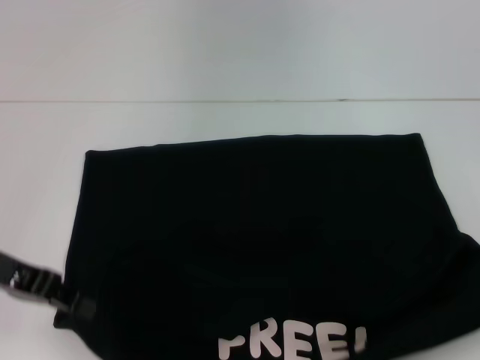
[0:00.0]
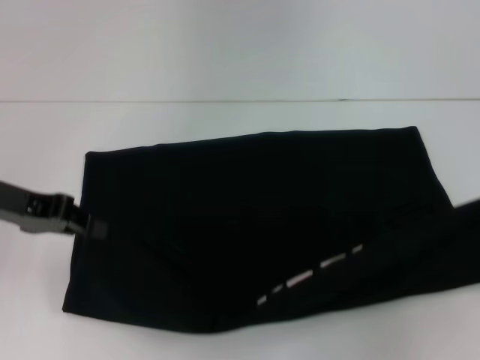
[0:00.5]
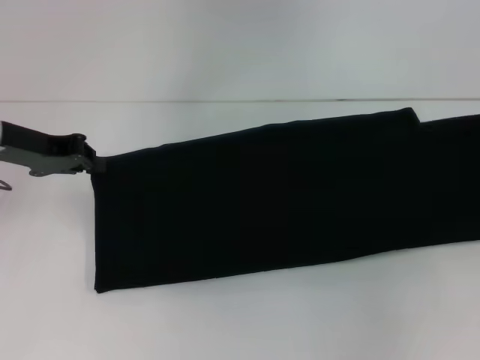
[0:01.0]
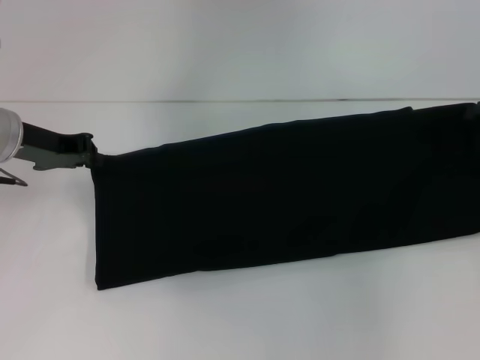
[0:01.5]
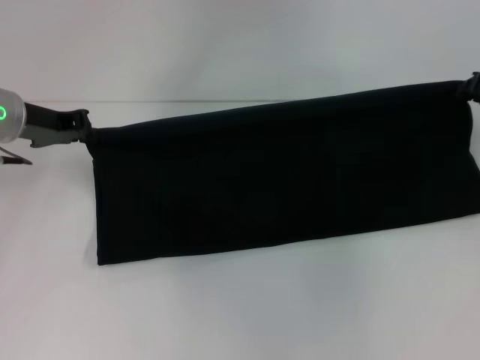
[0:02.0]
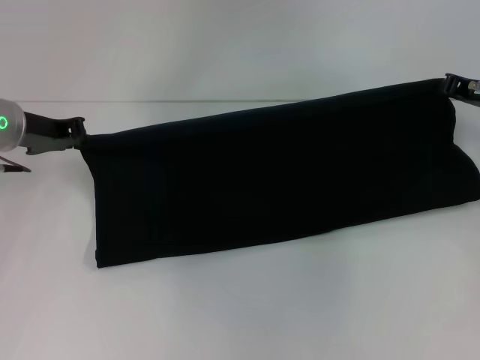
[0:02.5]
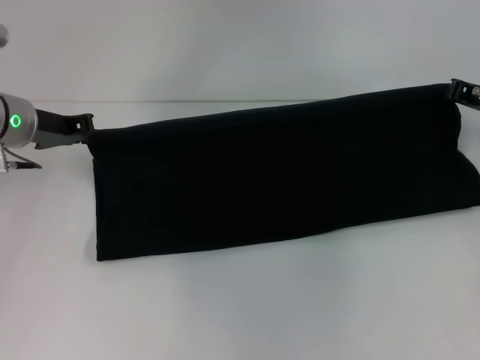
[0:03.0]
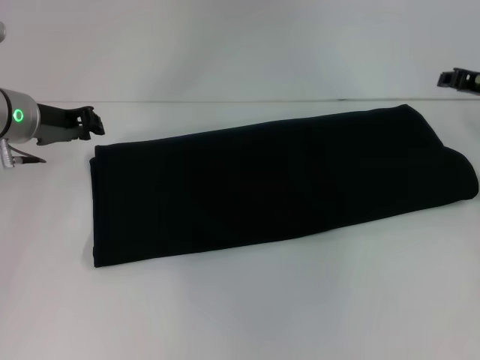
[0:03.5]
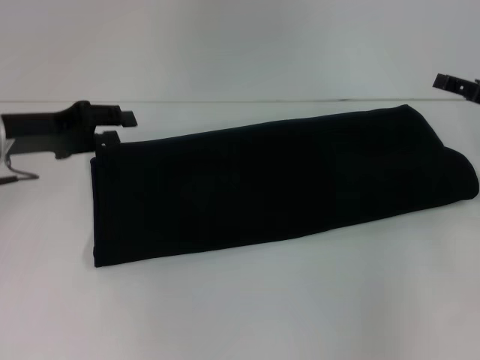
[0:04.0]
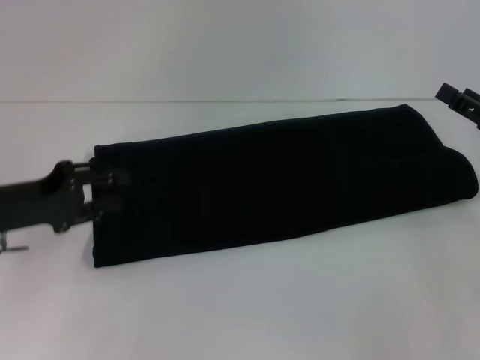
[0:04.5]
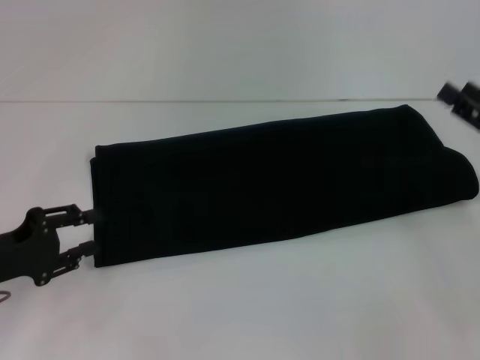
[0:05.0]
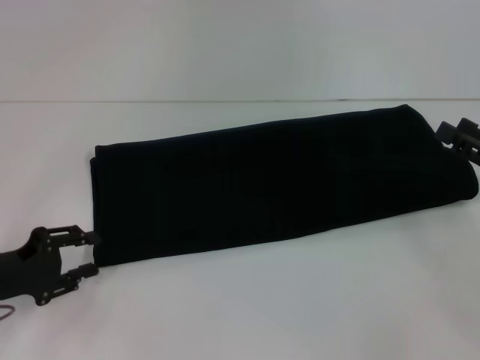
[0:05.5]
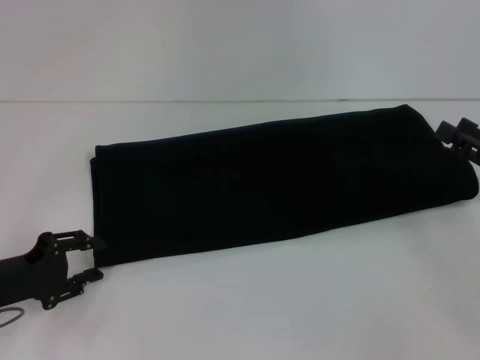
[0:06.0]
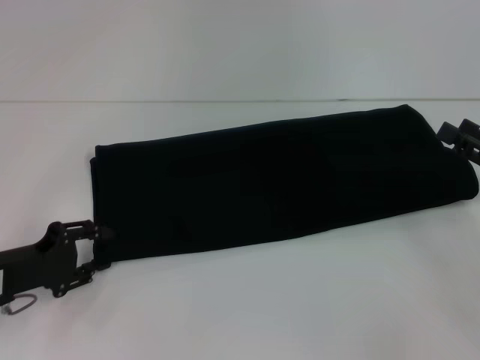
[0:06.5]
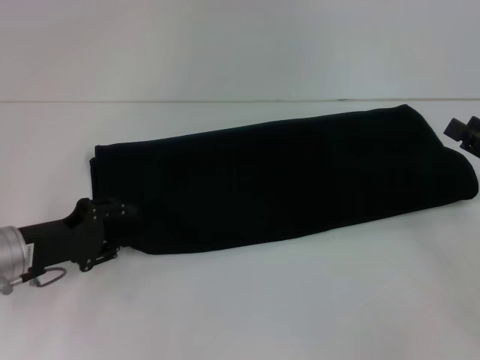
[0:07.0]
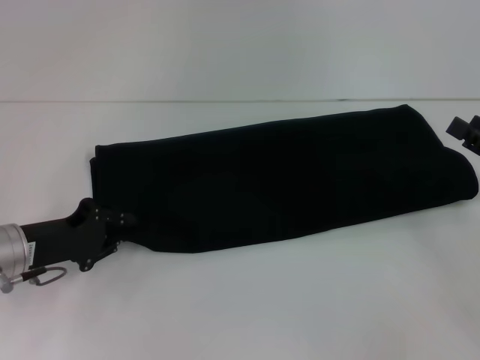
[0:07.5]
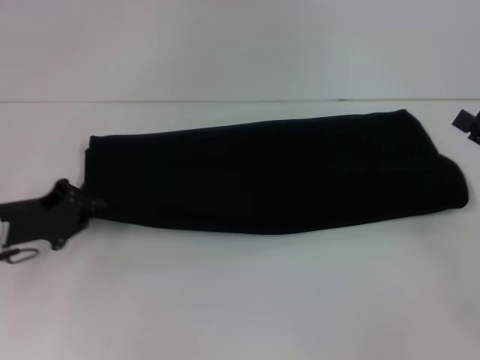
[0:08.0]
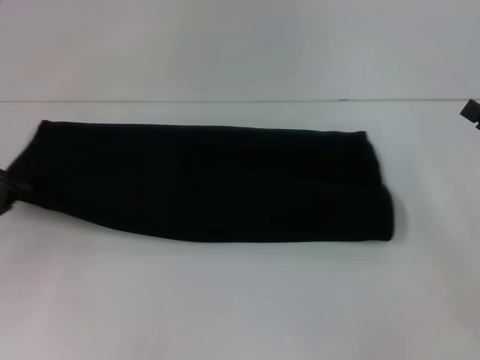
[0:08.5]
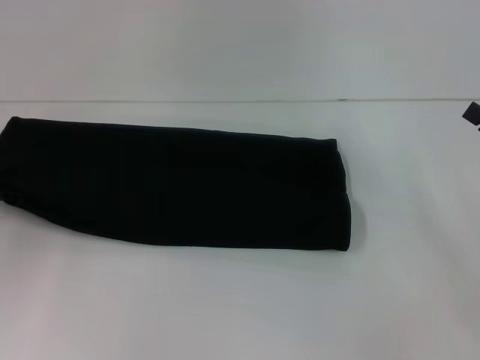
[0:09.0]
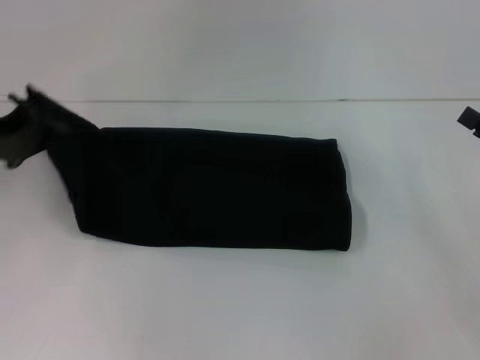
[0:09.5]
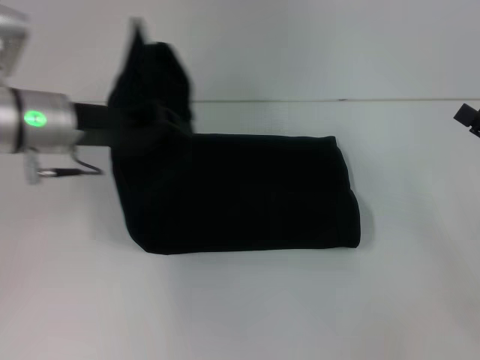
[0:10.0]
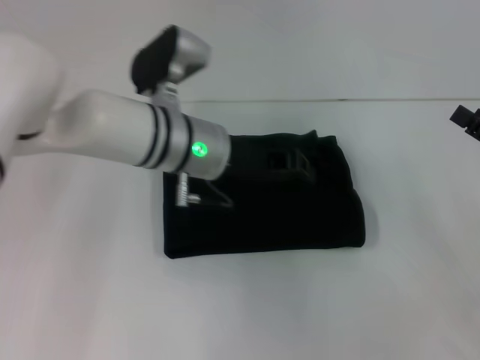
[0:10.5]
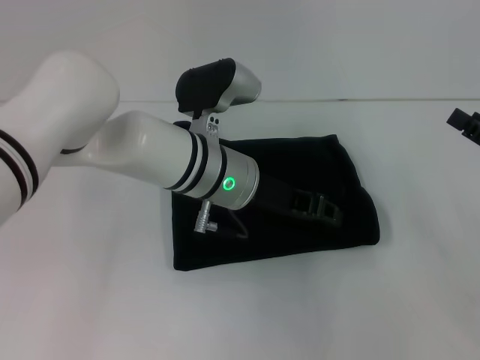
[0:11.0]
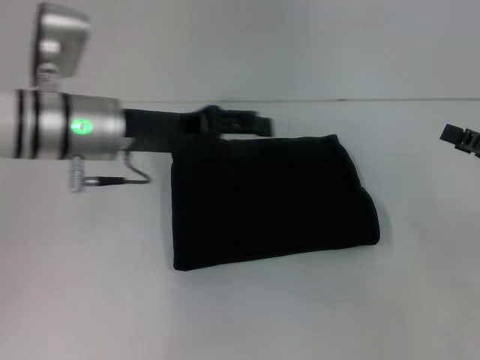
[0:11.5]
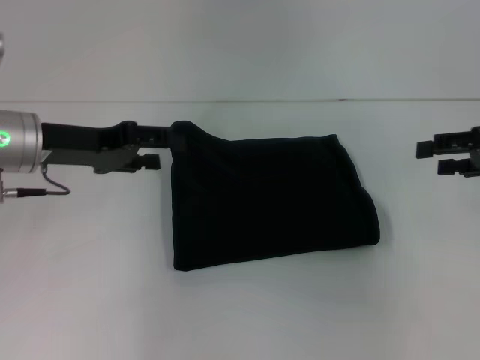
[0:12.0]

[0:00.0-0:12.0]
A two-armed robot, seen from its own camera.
Step, 0:00.0 to 0:03.5: Fold the clothes with your right hand.
Step, 0:00.0 to 0:11.0: Fold the clothes with your left hand.
0:00.0 to 0:02.0: The two grippers go about 15 cm forward.
0:02.0 to 0:04.0: The right gripper opens up, while the left gripper opens up.
0:04.0 to 0:06.0: The right gripper moves backward, approximately 10 cm, while the left gripper heads backward and downward, covering approximately 15 cm.
0:06.0 to 0:08.0: The left gripper moves forward, approximately 5 cm, and closes.
0:08.0 to 0:10.0: The left gripper shifts roughly 15 cm upward, to the right and forward.
0:10.0 to 0:12.0: The left gripper reaches roughly 15 cm to the right, then returns, and opens up. Meanwhile the right gripper goes some 10 cm forward and upward.

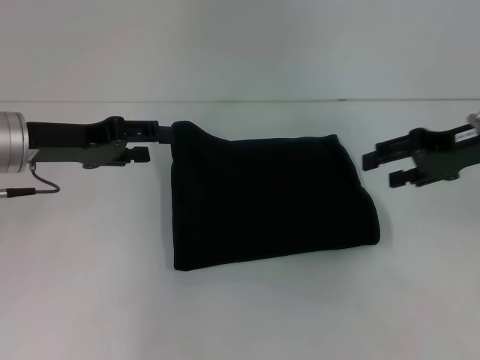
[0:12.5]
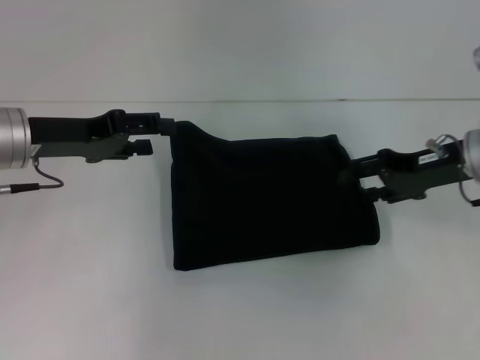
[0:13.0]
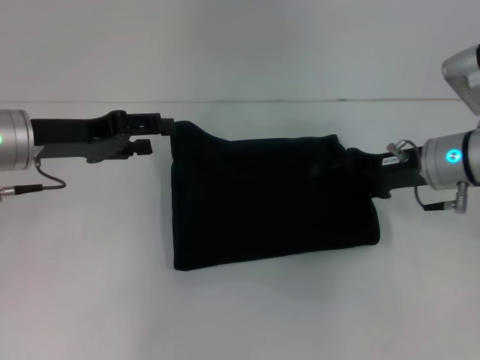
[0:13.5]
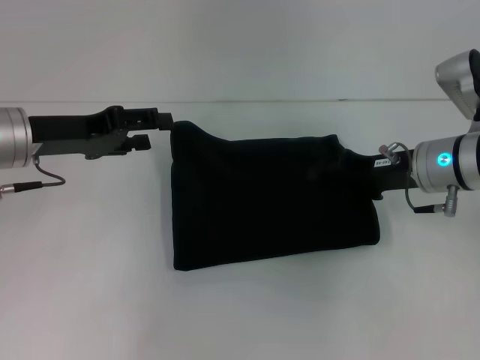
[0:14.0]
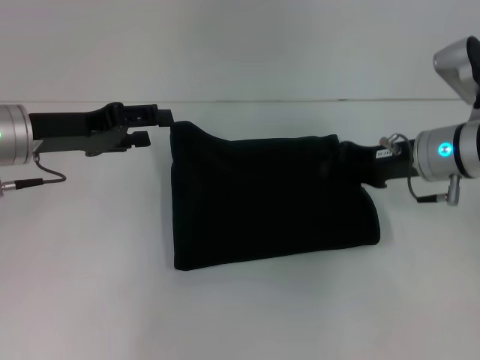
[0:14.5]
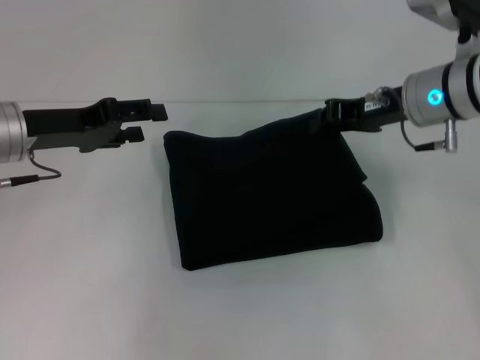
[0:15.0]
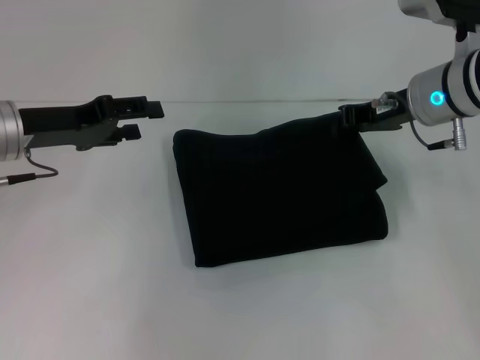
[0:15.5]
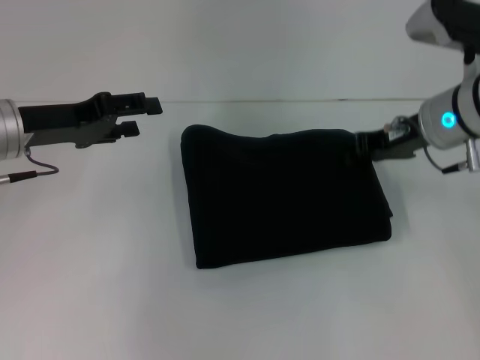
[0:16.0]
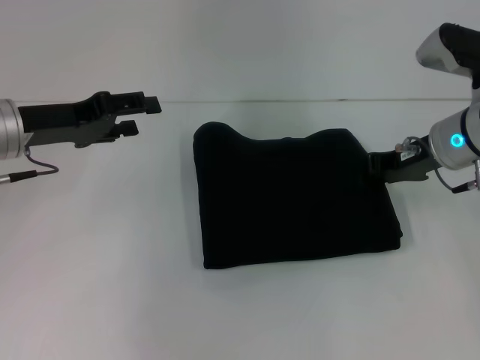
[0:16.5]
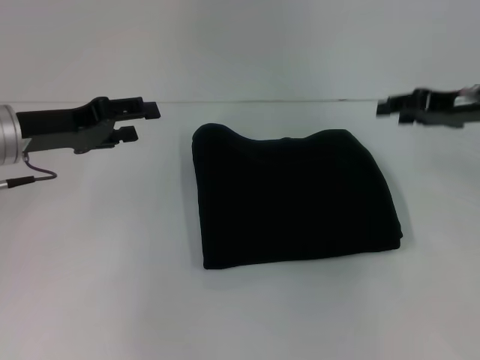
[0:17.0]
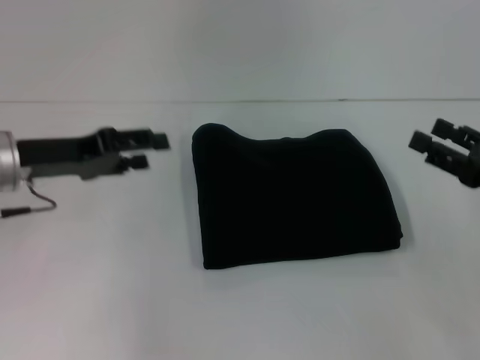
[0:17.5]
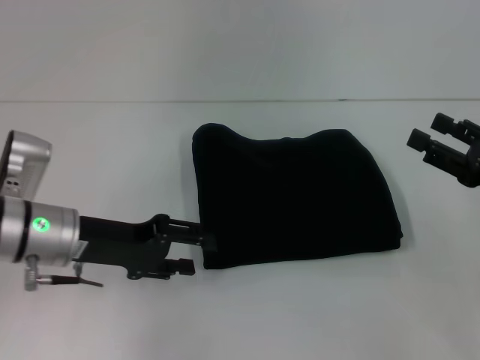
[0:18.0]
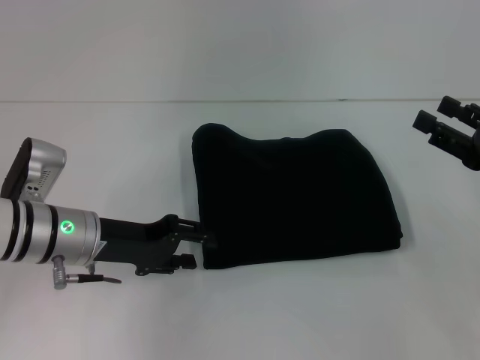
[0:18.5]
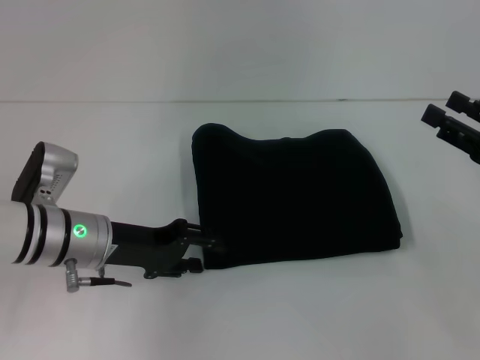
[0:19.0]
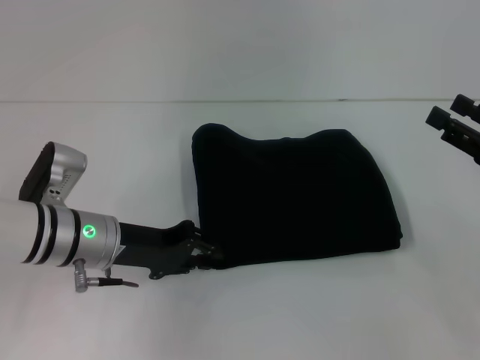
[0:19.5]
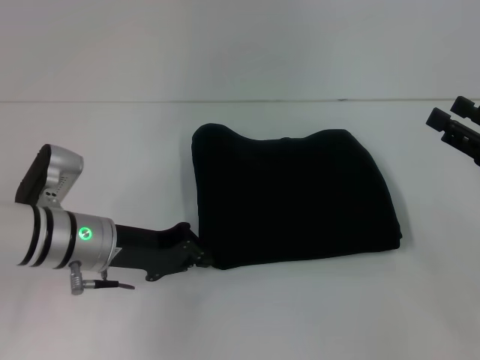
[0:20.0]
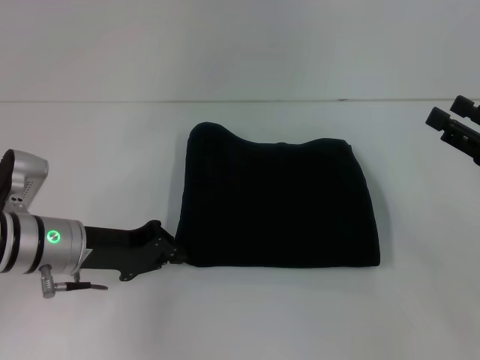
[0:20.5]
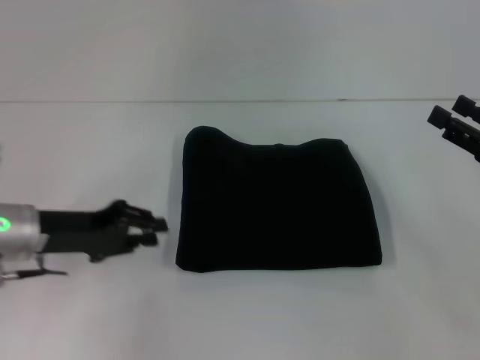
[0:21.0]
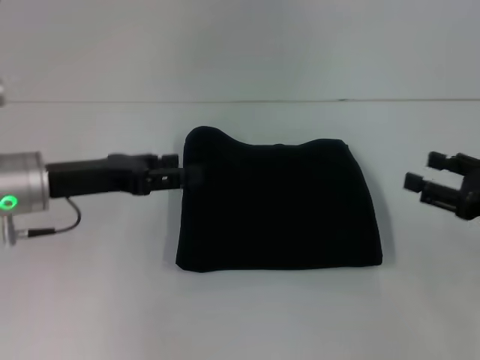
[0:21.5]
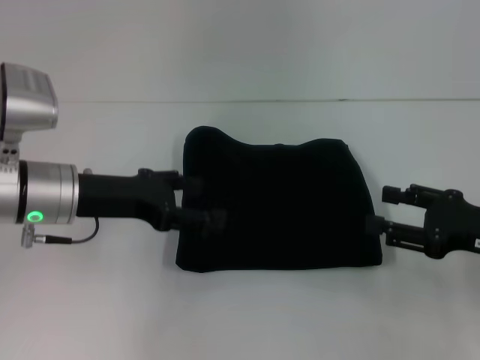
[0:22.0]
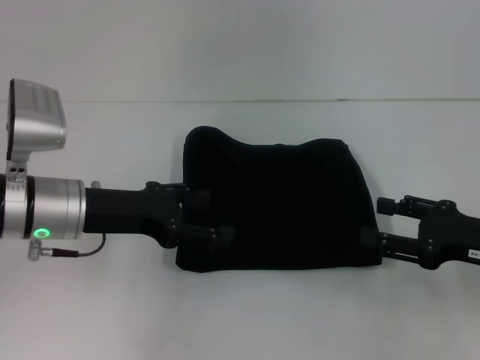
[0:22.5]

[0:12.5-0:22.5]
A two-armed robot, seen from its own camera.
0:12.5 to 0:14.5: The right gripper is displaced to the left and downward by some 10 cm, and closes.
0:16.5 to 0:18.5: The left gripper goes approximately 10 cm downward and to the right. Meanwhile the right gripper is displaced backward and to the right by about 15 cm, and opens up.
0:18.5 to 0:20.5: The left gripper closes up.
0:20.5 to 0:22.5: The left gripper ends up some 5 cm from where it was, and opens.

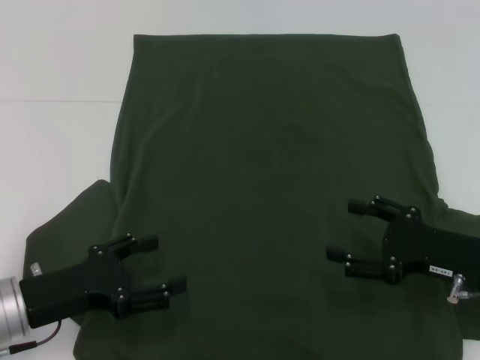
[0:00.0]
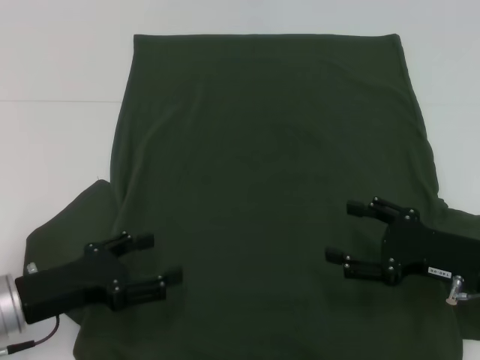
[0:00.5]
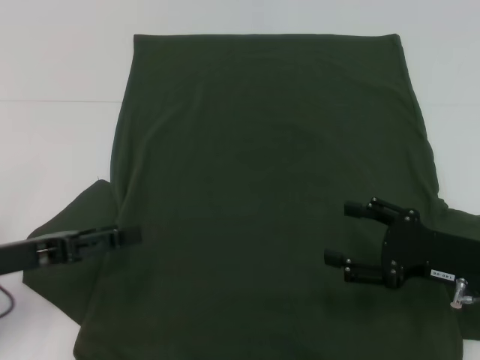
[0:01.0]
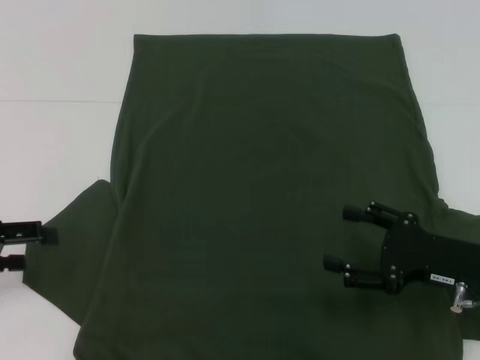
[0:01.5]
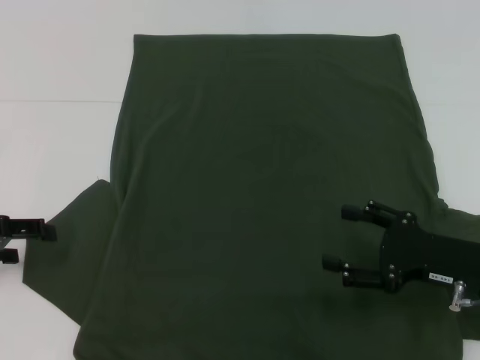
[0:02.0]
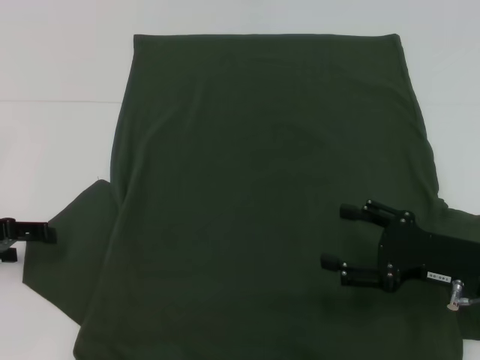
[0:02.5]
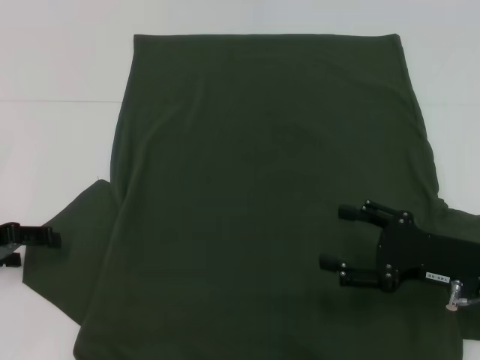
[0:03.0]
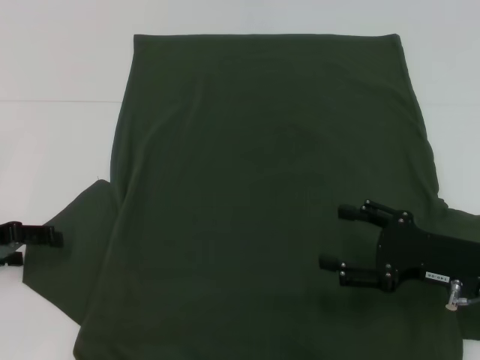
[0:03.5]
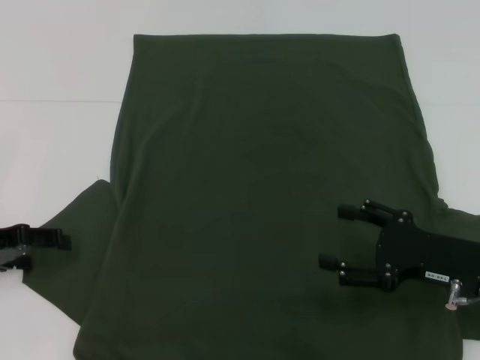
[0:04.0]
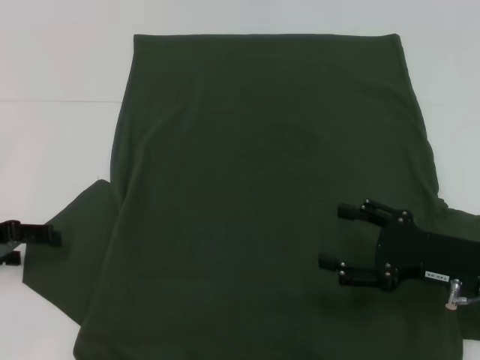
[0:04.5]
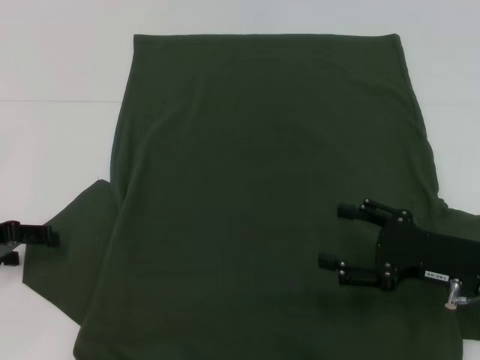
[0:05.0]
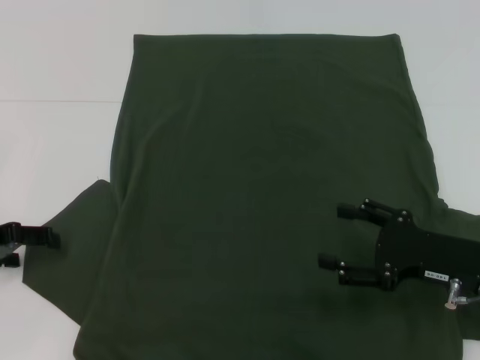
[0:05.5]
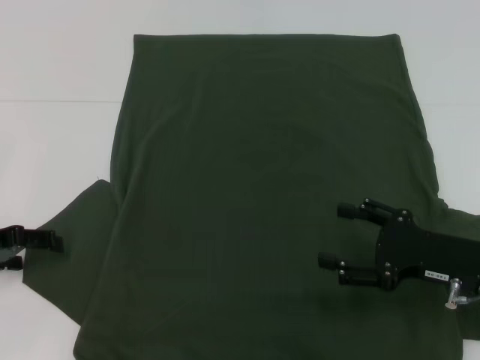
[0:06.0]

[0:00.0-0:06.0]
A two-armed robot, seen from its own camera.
0:00.0 to 0:02.0: The left gripper goes about 15 cm to the left, upward and forward.
0:02.0 to 0:04.0: There are only small adjustments of the grippers.
0:04.0 to 0:06.0: The two grippers keep their place.
